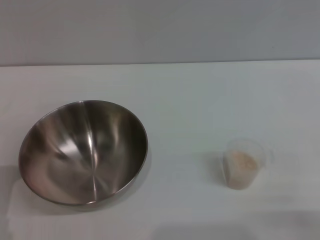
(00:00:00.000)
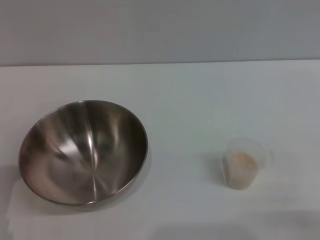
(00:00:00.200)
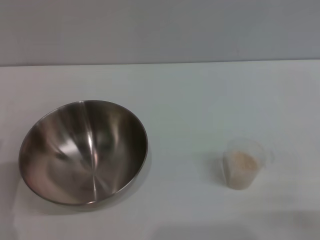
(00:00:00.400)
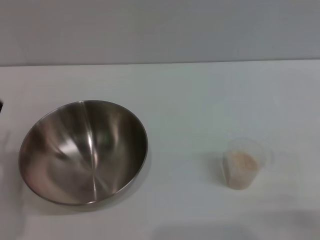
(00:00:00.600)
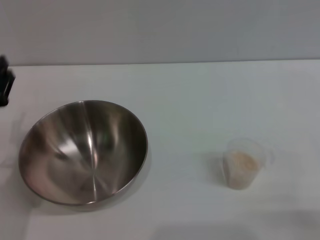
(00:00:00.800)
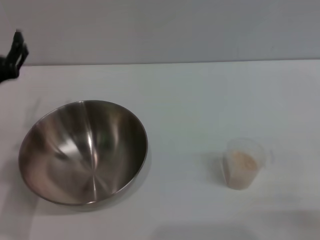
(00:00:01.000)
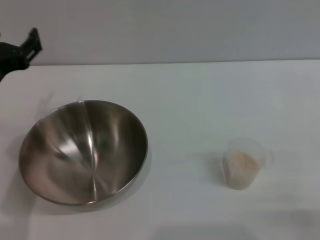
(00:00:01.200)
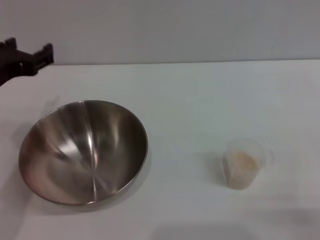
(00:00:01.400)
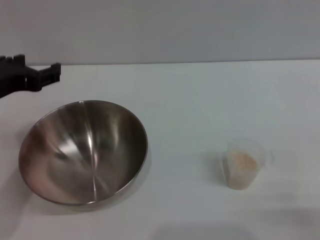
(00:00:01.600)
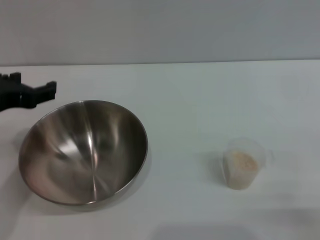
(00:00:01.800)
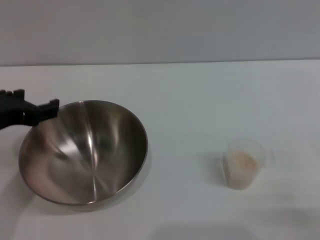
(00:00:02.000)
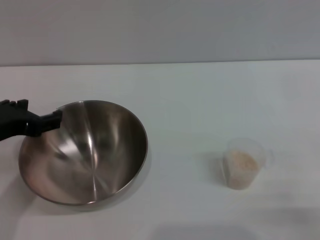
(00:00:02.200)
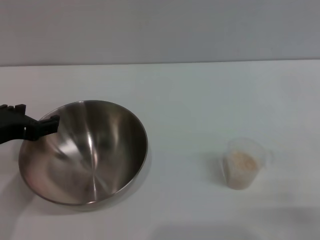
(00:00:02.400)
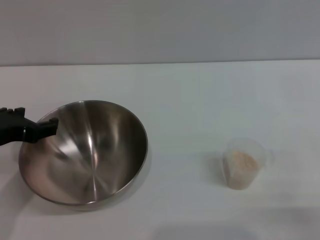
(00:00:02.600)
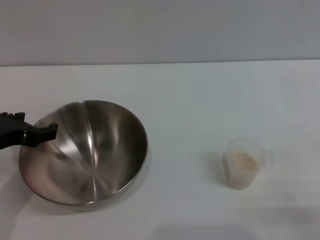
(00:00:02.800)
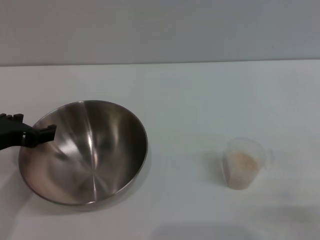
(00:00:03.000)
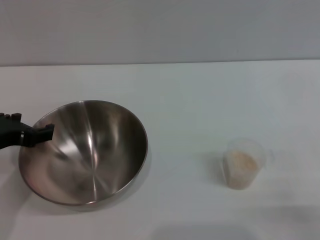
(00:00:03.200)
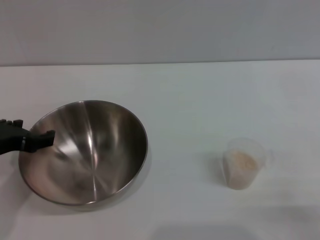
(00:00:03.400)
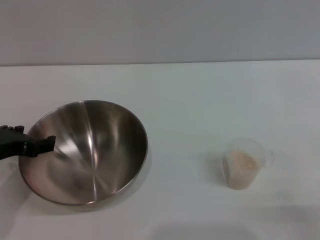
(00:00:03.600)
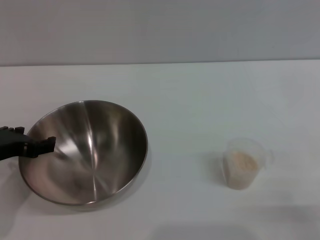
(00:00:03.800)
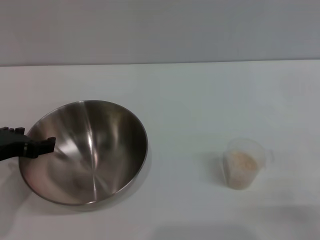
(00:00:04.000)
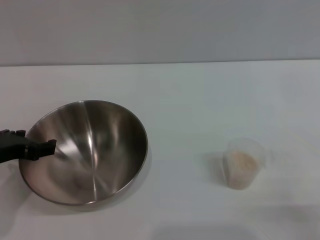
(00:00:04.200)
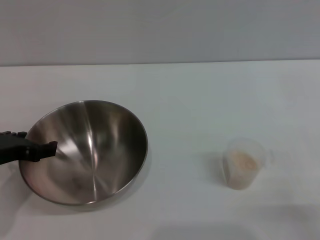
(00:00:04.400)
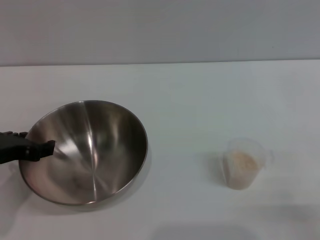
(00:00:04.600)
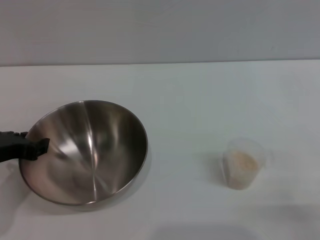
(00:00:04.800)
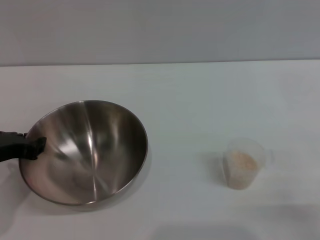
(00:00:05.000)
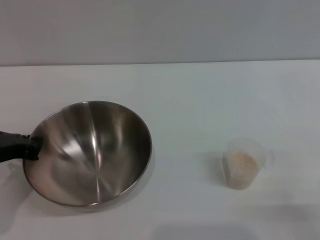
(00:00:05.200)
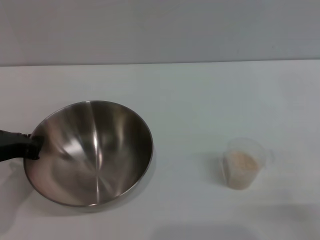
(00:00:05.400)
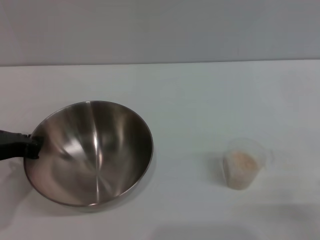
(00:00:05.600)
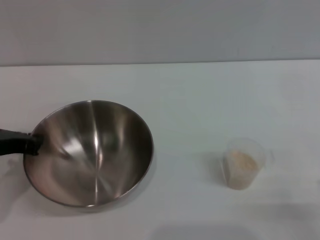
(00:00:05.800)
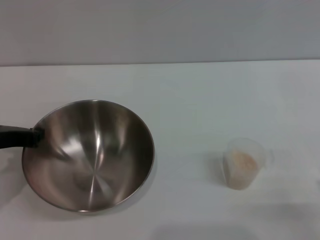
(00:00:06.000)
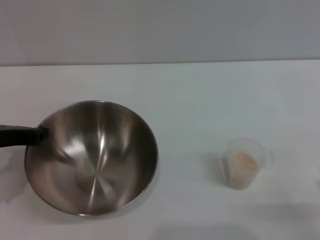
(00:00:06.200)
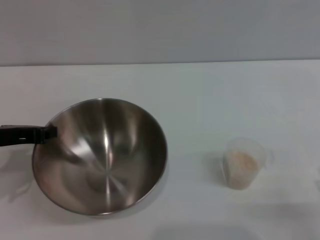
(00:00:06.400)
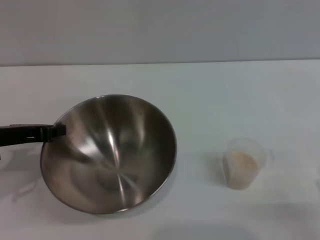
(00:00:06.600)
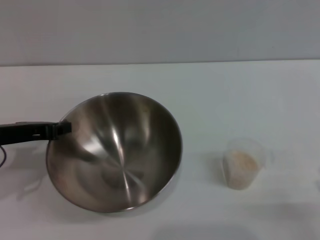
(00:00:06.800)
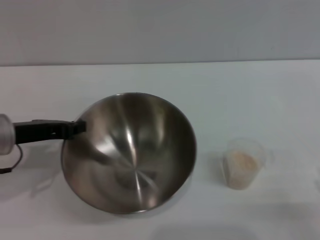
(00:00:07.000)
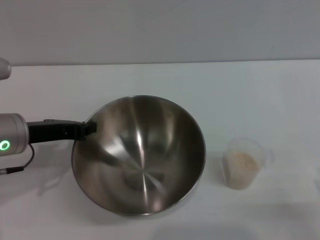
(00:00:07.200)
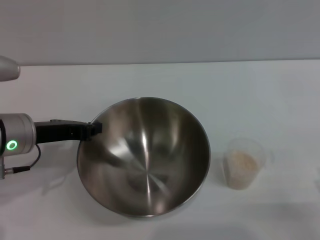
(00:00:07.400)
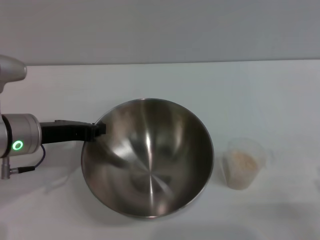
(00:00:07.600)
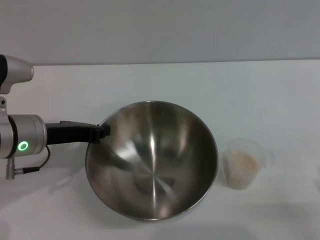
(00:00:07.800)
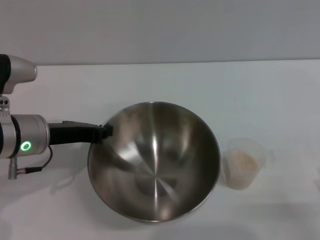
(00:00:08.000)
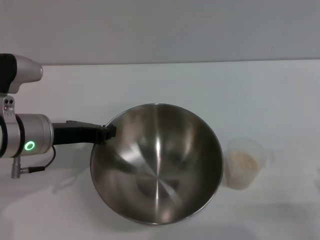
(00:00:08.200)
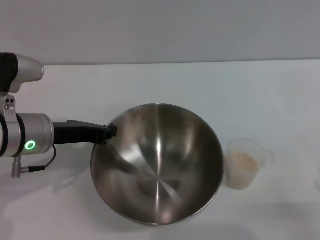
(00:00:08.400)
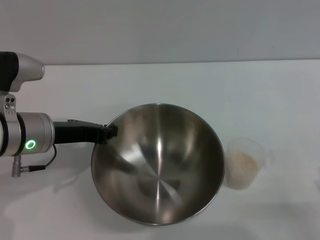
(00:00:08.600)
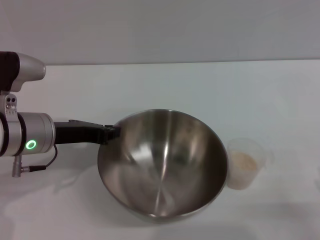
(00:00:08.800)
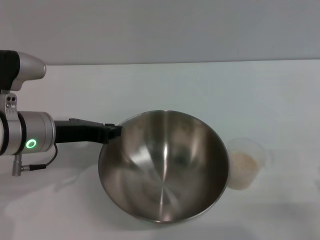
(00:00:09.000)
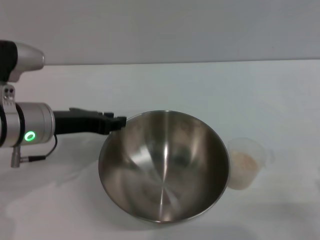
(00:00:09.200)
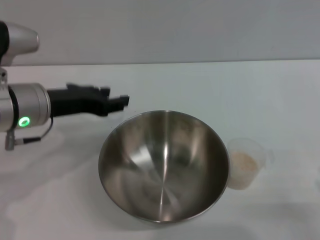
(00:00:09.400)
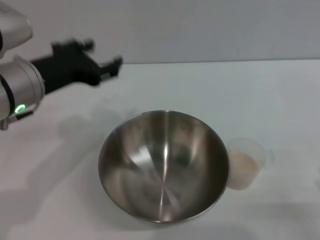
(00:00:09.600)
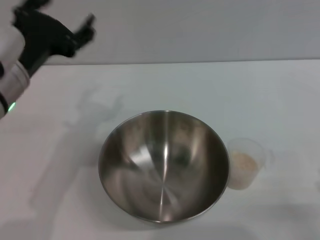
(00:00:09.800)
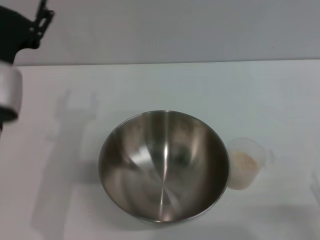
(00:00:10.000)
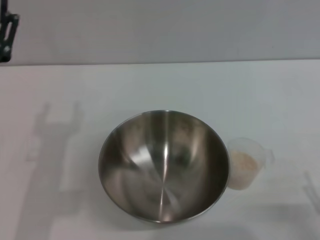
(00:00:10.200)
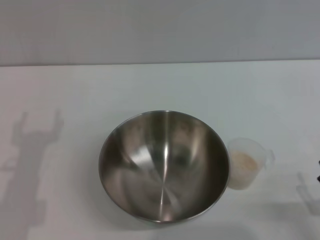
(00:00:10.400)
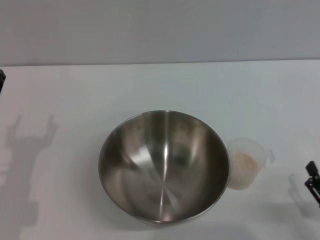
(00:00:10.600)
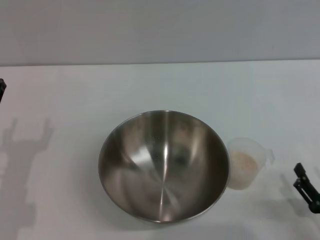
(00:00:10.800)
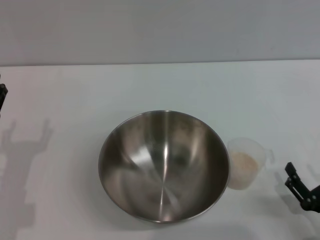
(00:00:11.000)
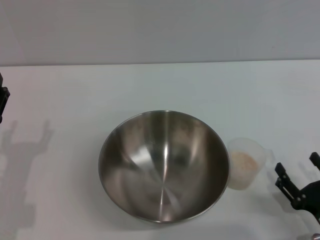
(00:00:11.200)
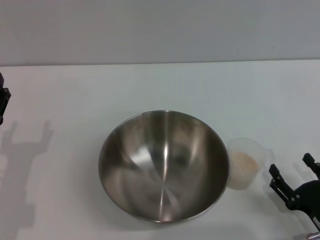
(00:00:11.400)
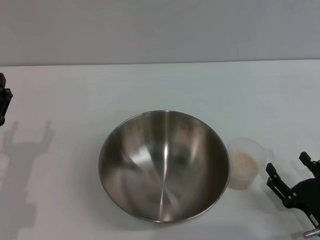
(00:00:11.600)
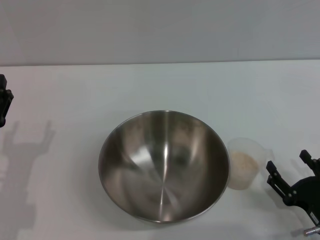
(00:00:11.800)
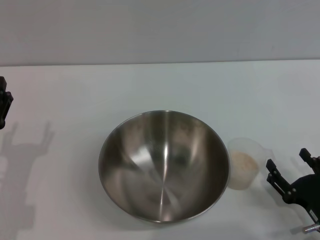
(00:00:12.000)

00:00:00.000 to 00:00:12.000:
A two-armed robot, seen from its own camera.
Task of the whole recording: Place the bowl in the middle of the table with one hand and pour the rice from the grain cup into it with the other hand.
Step, 00:00:00.000 to 00:00:07.800: Pick up the bowl with the left gripper.
Step, 00:00:08.000 to 00:00:09.800: Place the bowl in the center of view with the left gripper.
00:00:00.000 to 00:00:01.600: The left gripper is displaced upward and forward by roughly 20 cm.
00:00:01.600 to 00:00:03.000: The left gripper heads downward, covering some 5 cm.
00:00:03.000 to 00:00:04.400: The grippers make only small movements.
00:00:04.400 to 00:00:06.000: The left gripper closes up.
00:00:06.000 to 00:00:07.600: The left gripper is displaced to the right by about 5 cm.
00:00:07.600 to 00:00:09.000: There are only small adjustments of the grippers.
00:00:09.000 to 00:00:10.400: The left gripper goes roughly 10 cm backward, reaches some 5 cm upward, then returns, and opens its fingers.
00:00:10.400 to 00:00:12.000: The right gripper shifts by approximately 5 cm.

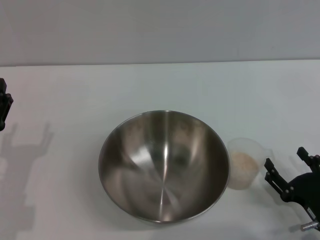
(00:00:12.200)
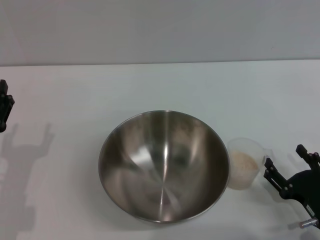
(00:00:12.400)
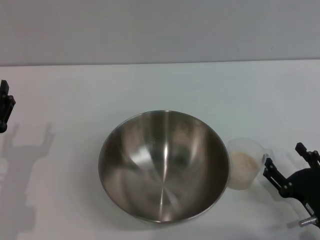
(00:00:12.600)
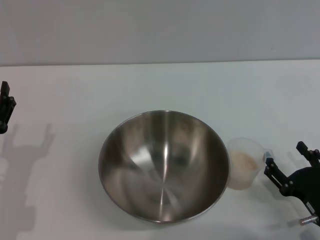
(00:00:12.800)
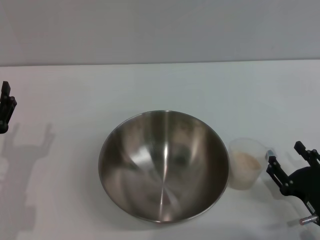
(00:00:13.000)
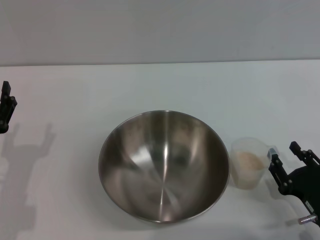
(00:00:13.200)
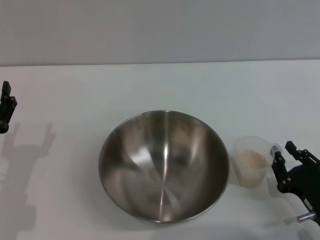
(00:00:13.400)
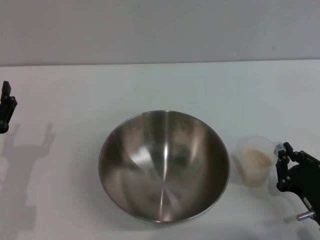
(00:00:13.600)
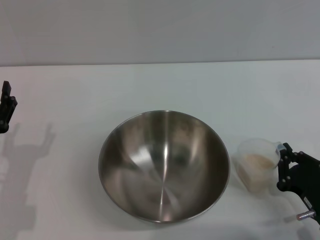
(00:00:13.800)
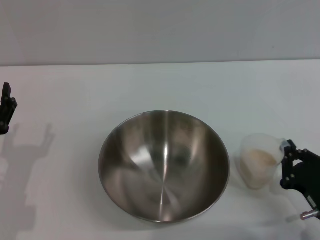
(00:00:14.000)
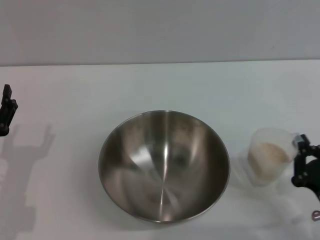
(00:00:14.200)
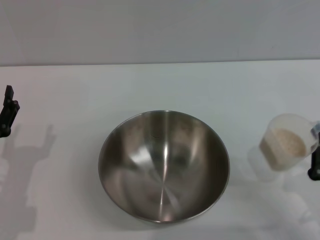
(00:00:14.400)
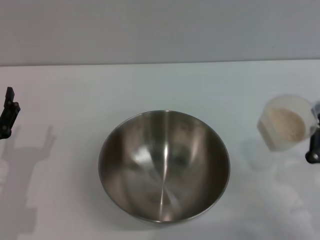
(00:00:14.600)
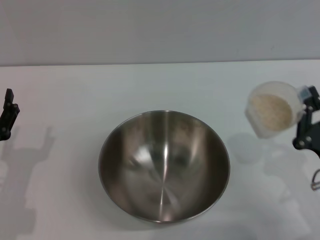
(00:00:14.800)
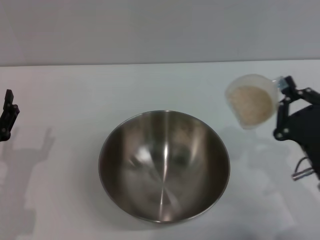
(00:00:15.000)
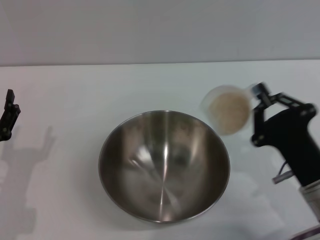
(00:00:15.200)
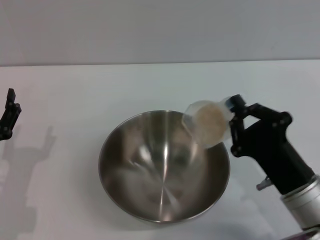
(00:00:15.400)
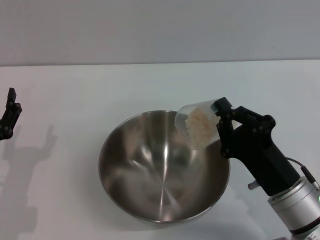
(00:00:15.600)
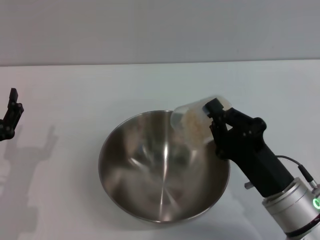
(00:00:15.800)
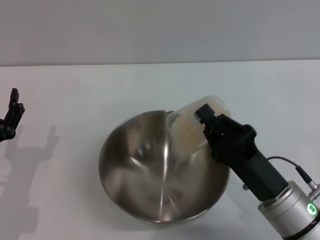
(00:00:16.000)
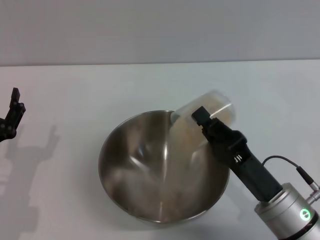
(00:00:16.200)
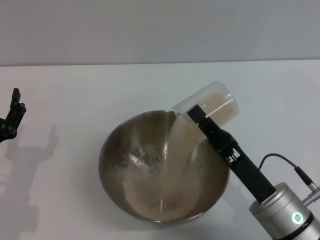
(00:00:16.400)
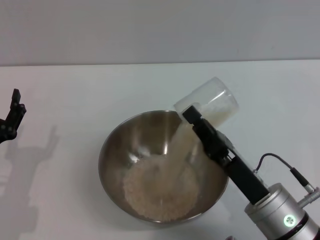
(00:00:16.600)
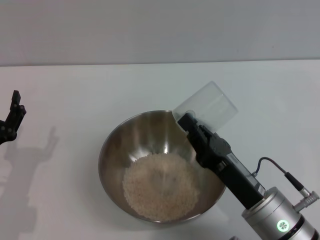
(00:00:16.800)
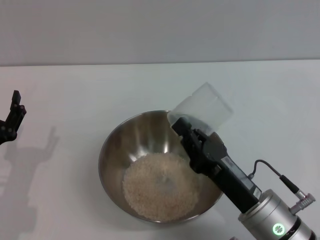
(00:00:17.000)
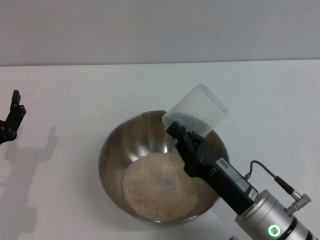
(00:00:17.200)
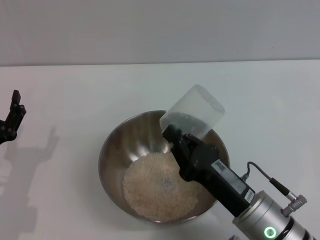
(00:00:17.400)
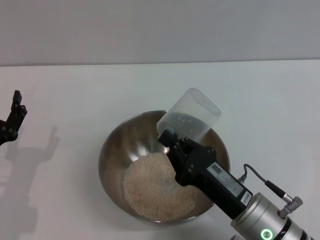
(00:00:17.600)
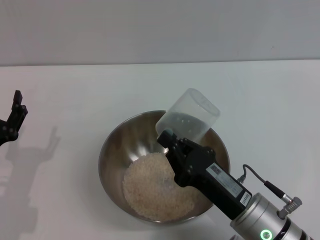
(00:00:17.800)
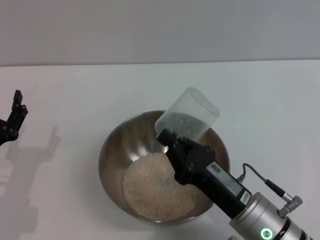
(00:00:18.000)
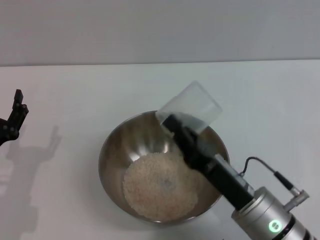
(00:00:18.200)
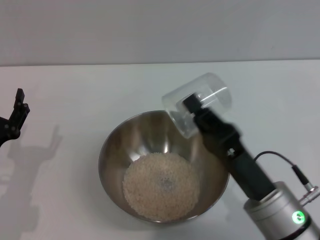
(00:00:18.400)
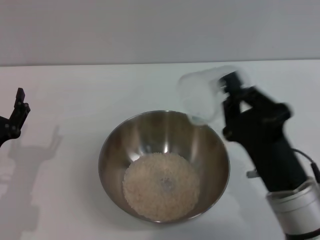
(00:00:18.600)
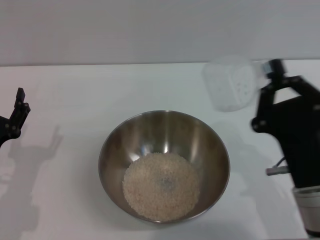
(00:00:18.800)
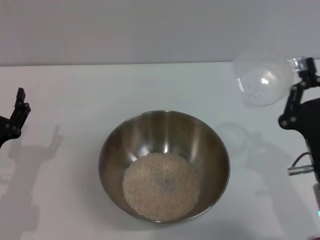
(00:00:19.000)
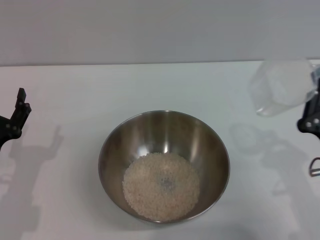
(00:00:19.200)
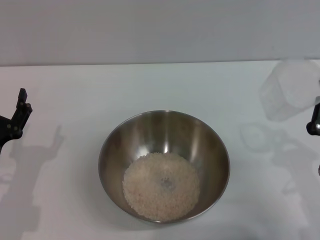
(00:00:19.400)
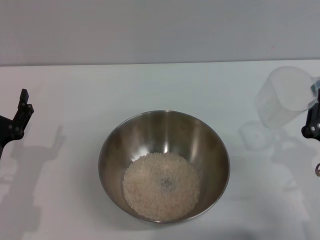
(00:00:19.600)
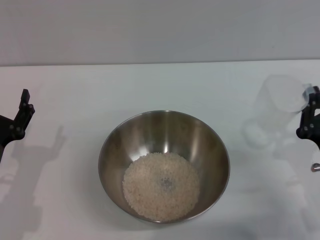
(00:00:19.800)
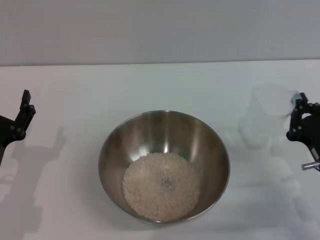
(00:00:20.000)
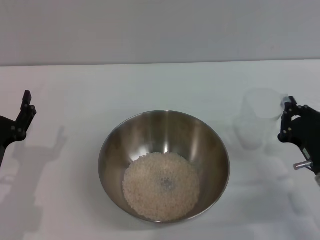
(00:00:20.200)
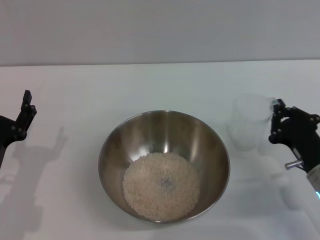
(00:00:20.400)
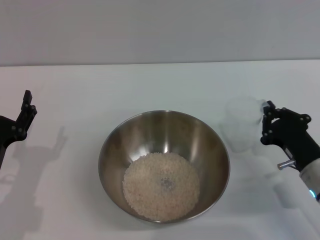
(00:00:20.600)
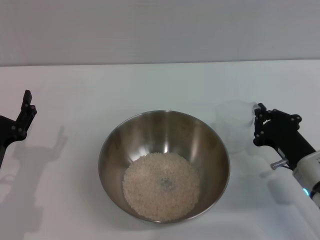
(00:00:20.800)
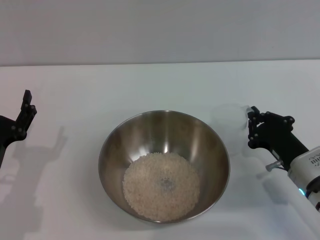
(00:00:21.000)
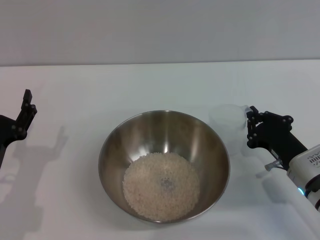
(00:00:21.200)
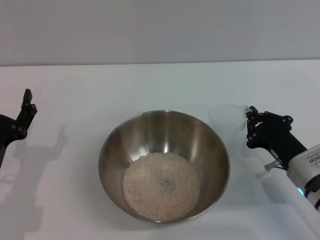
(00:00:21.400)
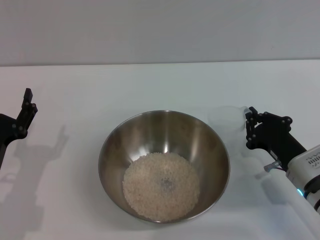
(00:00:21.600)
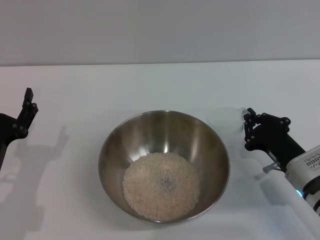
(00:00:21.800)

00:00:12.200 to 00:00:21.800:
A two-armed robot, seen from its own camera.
Task of the whole recording: Place the bowl in the middle of the table with one hand and pour the rice from the grain cup into it with the other hand.
Step, 00:00:12.200 to 00:00:14.400: Pick up the cup with rice in it with the right gripper.
Step, 00:00:14.600 to 00:00:17.000: Pour the rice from the cup into the bowl with the right gripper.
00:00:12.200 to 00:00:13.800: The right gripper closes.
00:00:13.800 to 00:00:15.400: The right gripper is displaced to the left and upward by some 10 cm.
00:00:15.400 to 00:00:17.000: The right gripper is displaced to the left by about 5 cm.
00:00:18.600 to 00:00:20.200: The right gripper moves to the right, downward and forward, some 15 cm.
00:00:20.200 to 00:00:21.800: The grippers stay close to where they were, moving slightly.
